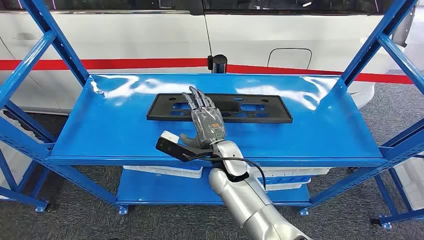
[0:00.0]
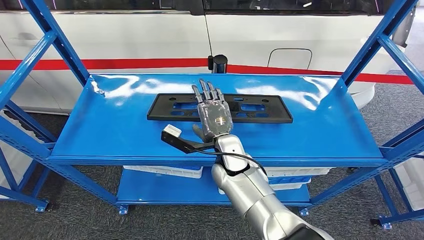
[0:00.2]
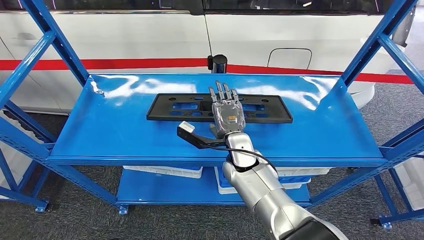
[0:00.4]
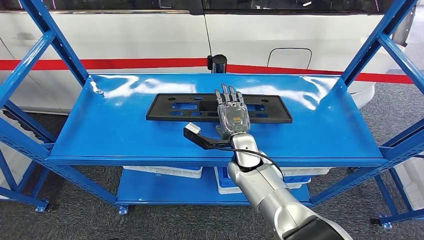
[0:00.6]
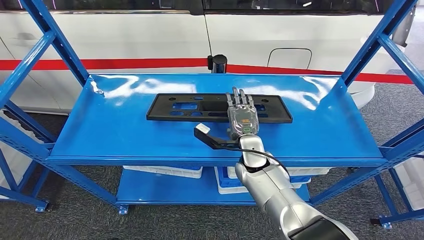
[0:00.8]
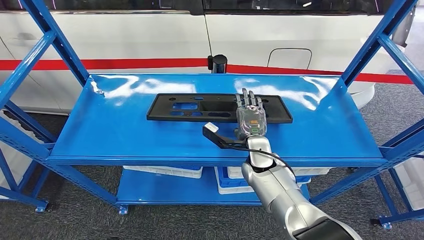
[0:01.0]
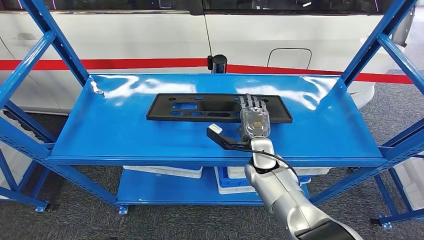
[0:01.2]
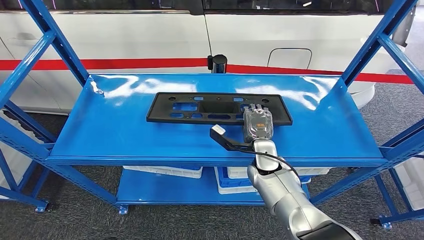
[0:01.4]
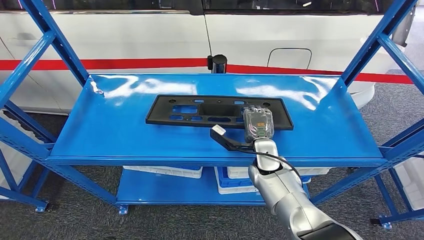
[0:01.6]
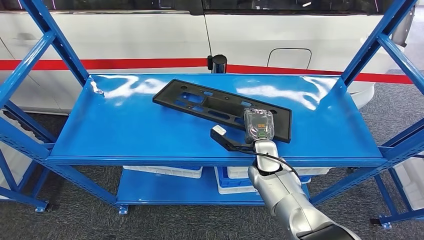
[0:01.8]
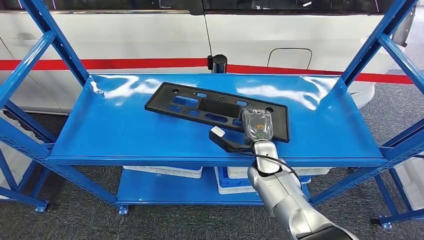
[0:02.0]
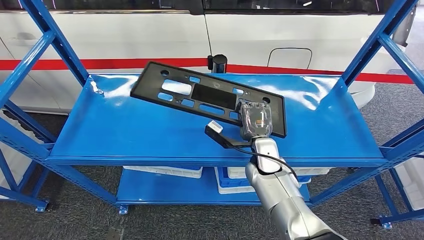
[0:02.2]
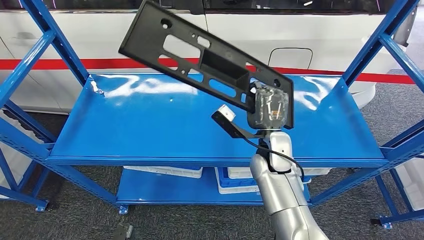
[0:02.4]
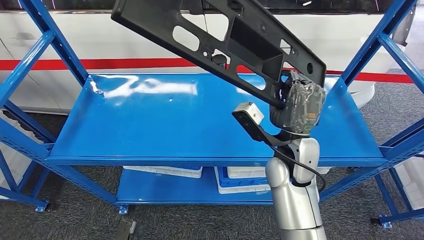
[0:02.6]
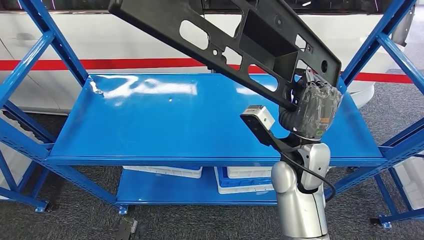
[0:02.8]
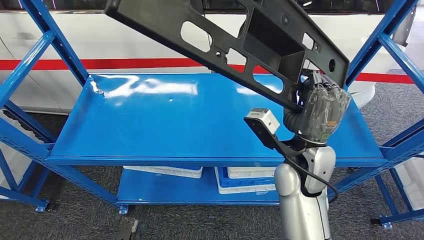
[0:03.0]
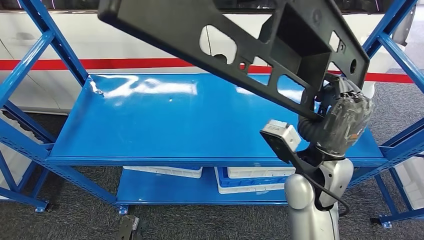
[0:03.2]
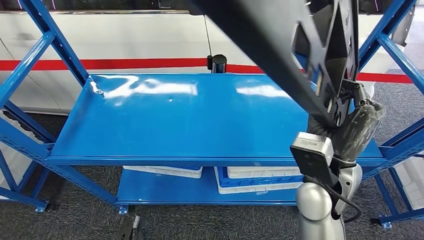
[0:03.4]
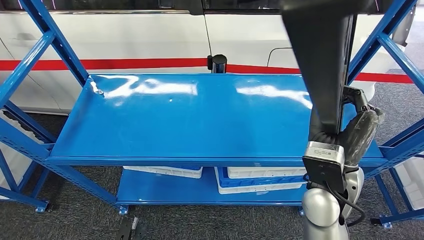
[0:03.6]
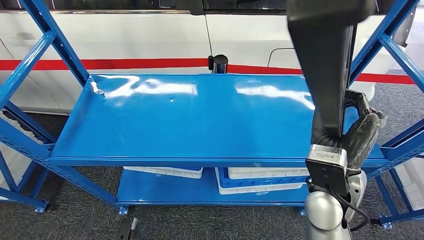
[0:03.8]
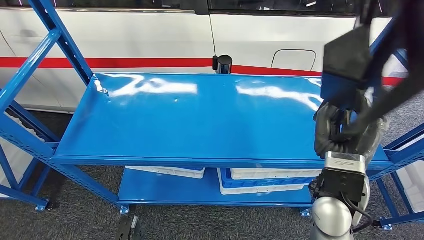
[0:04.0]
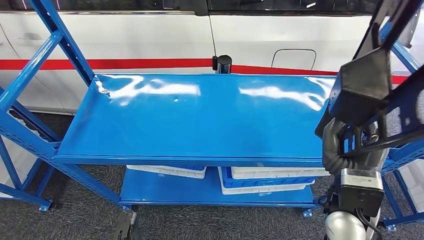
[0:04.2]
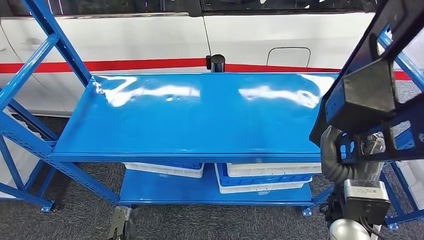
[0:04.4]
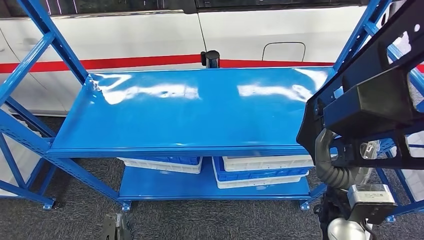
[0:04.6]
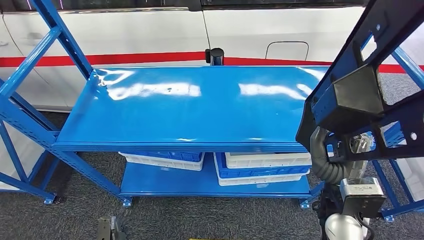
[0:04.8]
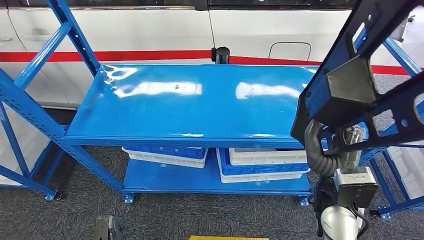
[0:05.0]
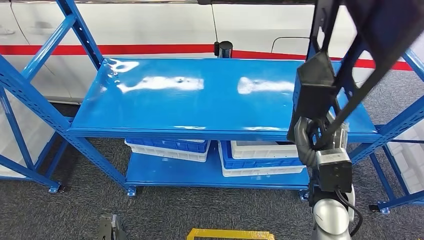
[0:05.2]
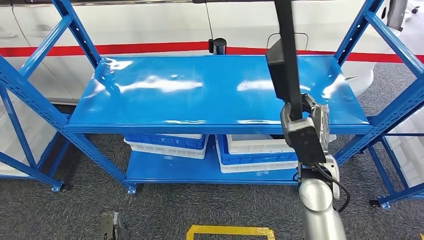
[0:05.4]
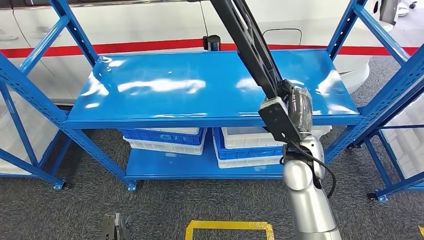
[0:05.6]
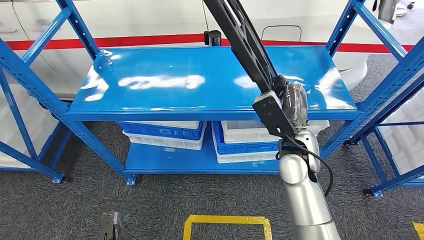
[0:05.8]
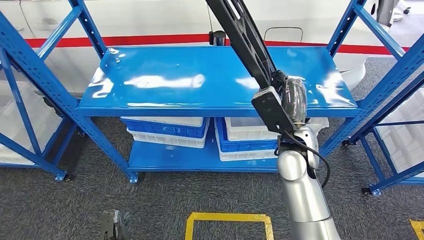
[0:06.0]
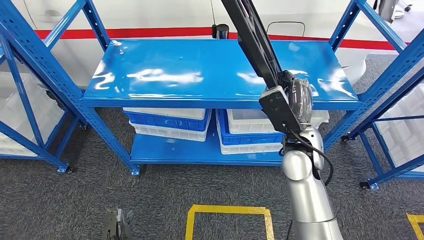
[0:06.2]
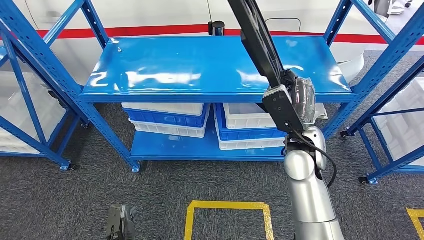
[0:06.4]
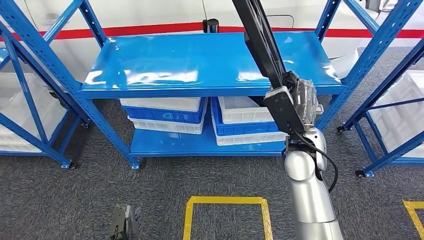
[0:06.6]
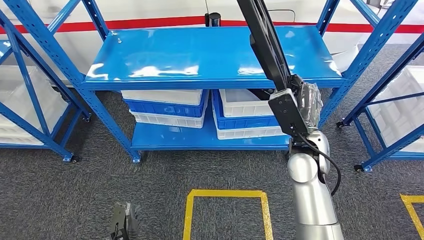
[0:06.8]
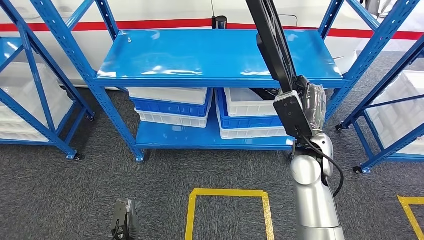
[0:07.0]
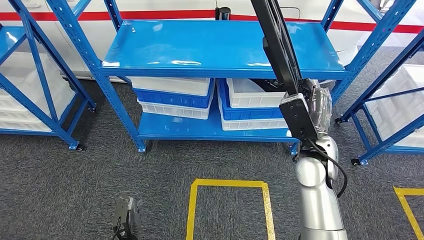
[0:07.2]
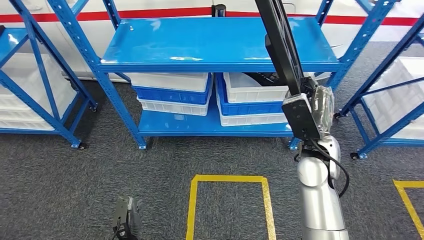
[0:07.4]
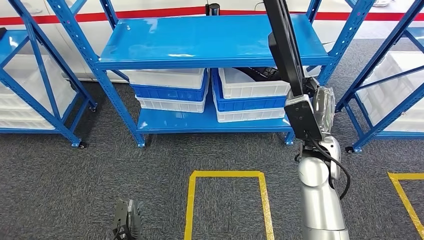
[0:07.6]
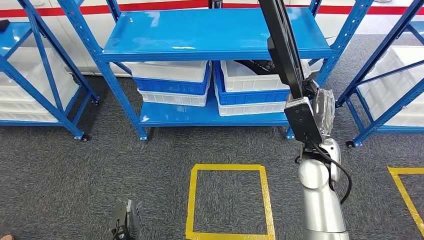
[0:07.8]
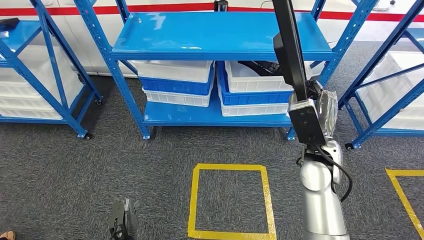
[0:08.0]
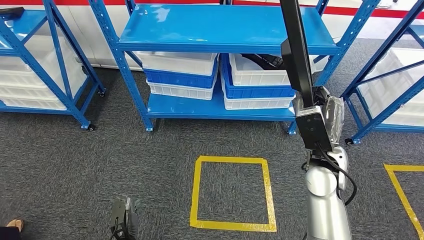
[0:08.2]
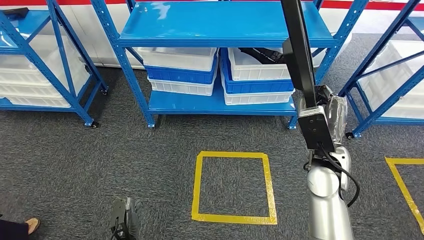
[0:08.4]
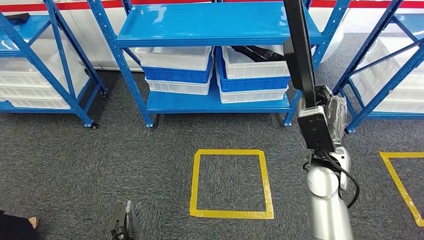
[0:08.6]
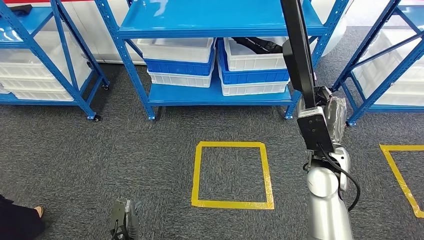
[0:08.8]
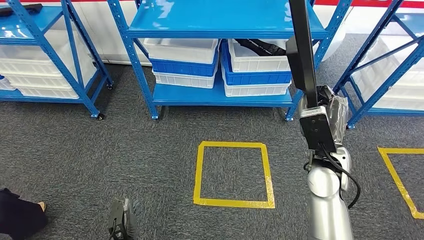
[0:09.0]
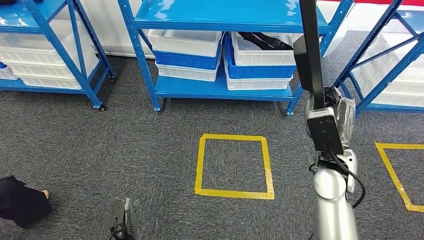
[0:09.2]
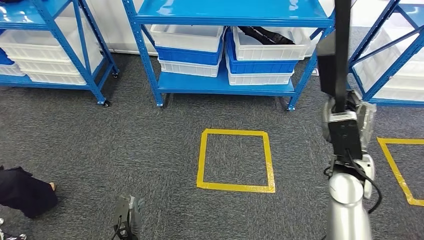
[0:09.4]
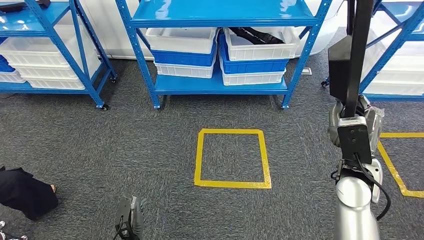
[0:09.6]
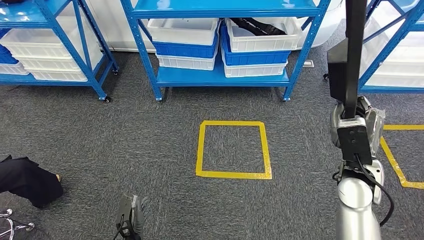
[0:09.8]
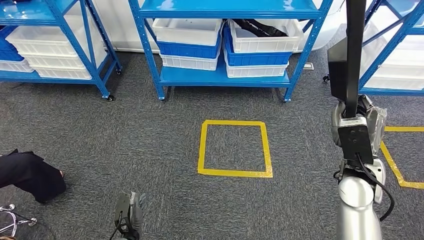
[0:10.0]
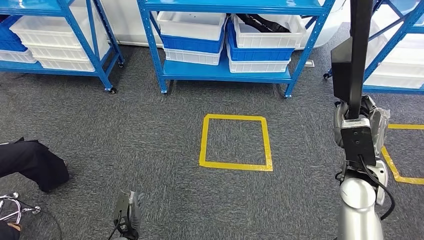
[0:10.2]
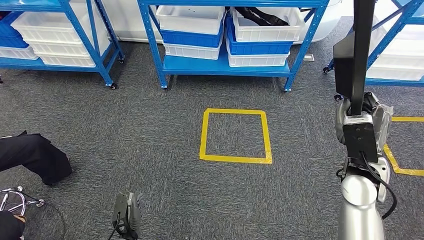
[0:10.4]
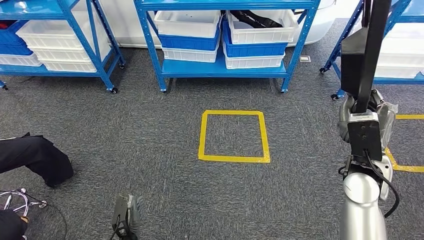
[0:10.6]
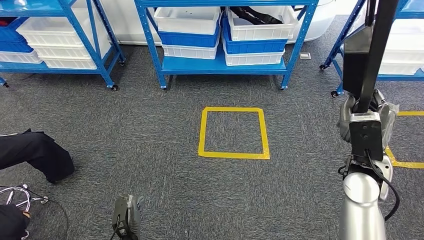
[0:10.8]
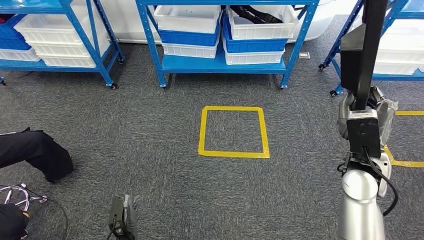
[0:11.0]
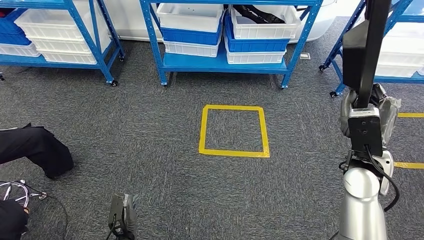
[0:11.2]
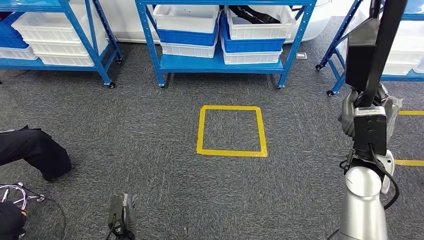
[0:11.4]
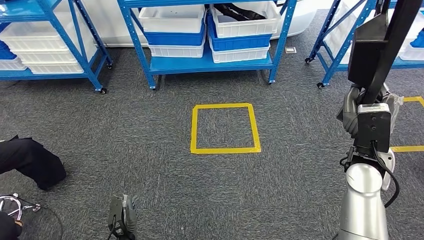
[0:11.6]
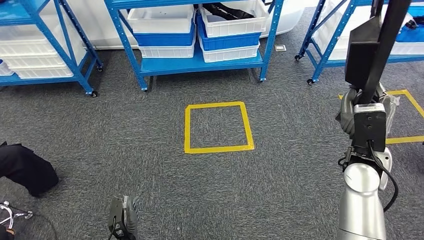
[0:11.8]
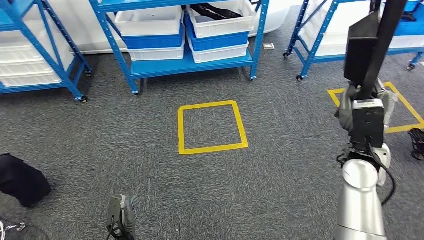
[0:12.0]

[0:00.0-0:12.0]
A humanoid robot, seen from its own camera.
Step, 0:00.0 to 0:04.8: Pick up the large material from the shelf.

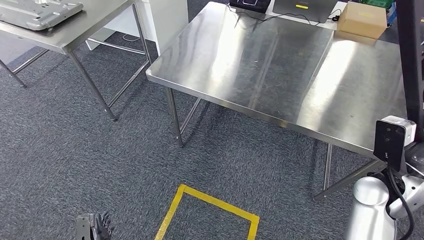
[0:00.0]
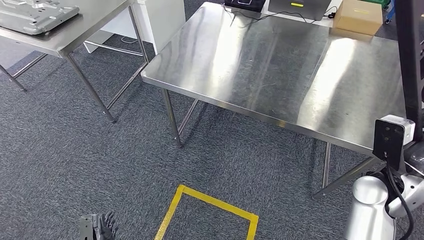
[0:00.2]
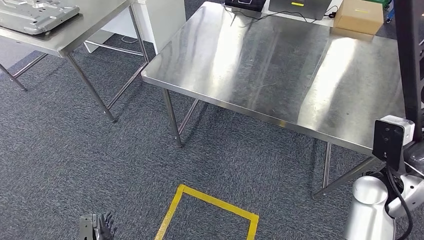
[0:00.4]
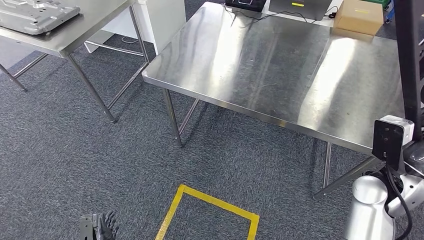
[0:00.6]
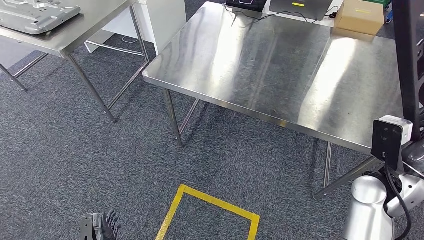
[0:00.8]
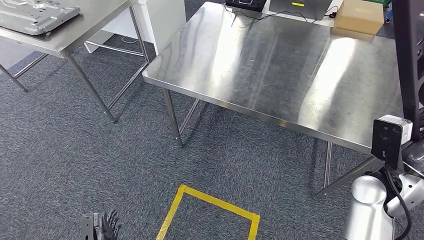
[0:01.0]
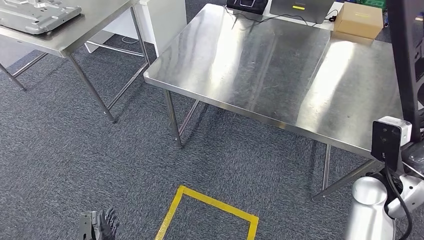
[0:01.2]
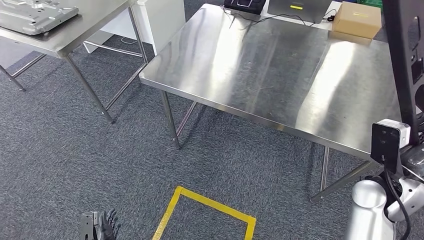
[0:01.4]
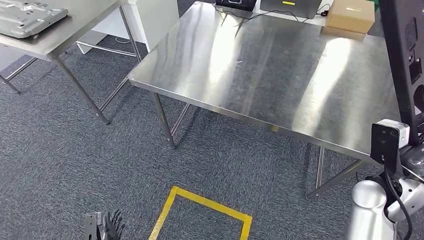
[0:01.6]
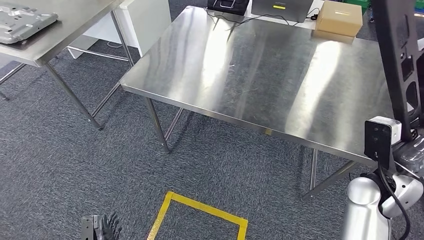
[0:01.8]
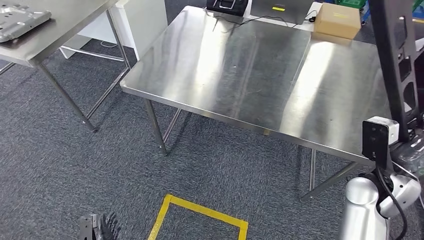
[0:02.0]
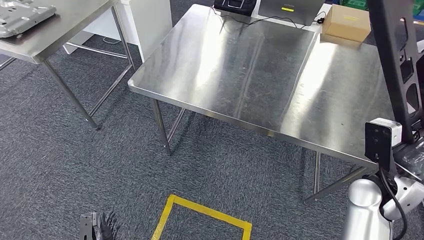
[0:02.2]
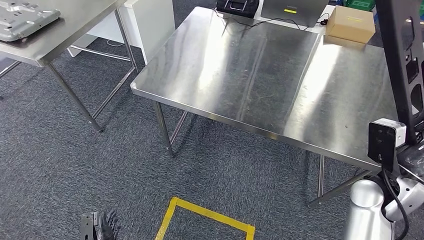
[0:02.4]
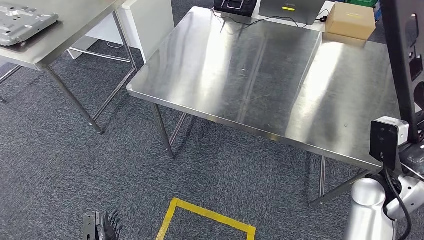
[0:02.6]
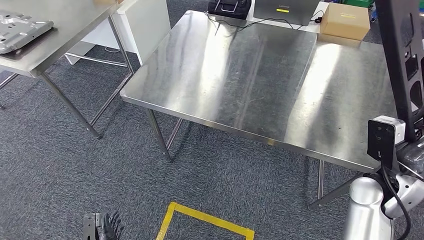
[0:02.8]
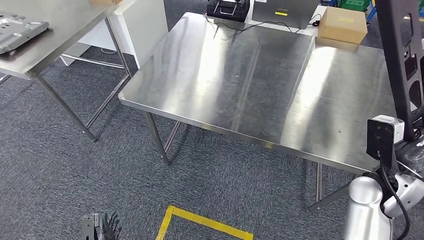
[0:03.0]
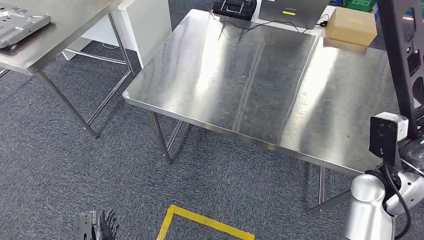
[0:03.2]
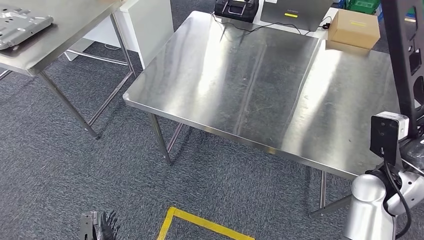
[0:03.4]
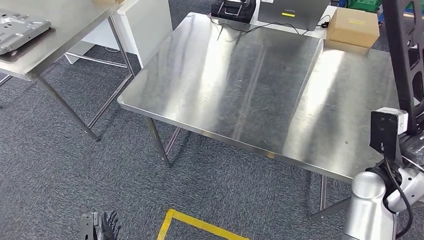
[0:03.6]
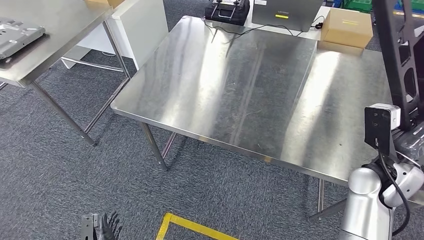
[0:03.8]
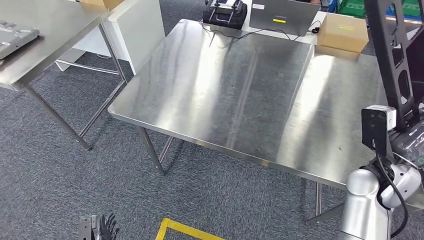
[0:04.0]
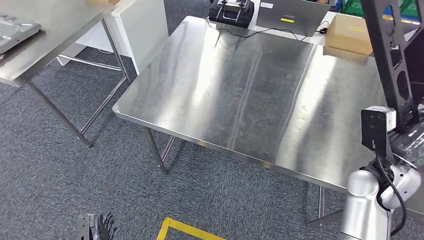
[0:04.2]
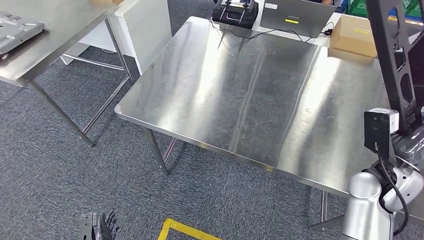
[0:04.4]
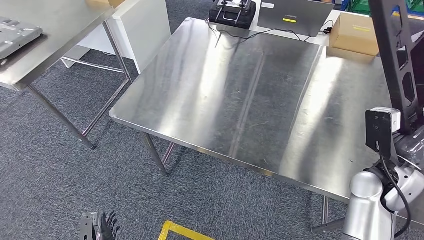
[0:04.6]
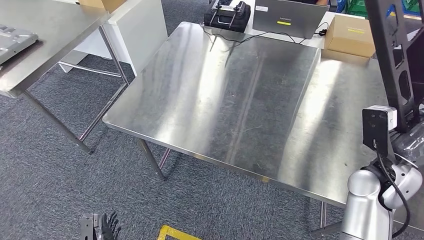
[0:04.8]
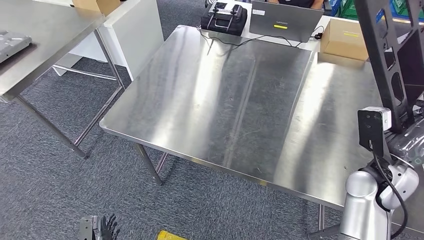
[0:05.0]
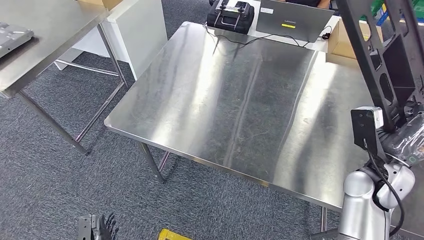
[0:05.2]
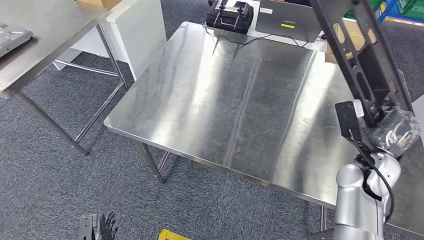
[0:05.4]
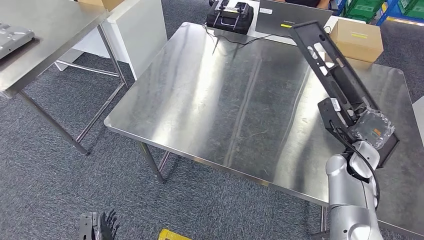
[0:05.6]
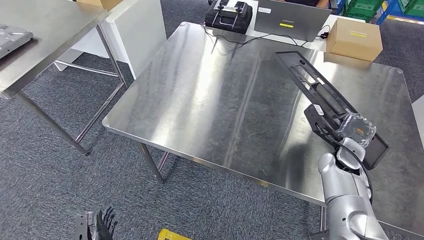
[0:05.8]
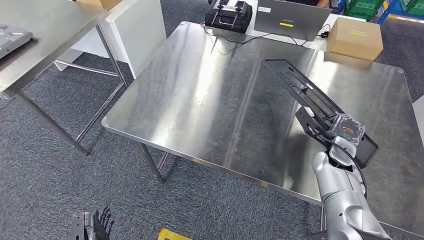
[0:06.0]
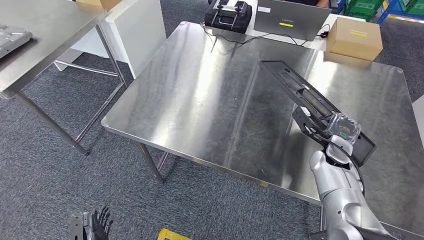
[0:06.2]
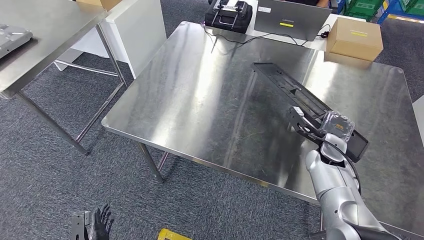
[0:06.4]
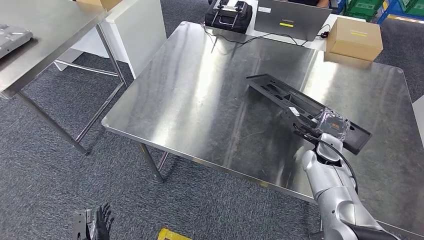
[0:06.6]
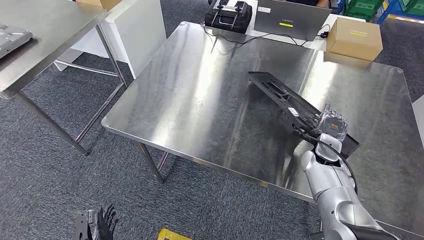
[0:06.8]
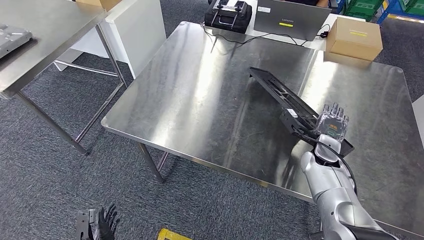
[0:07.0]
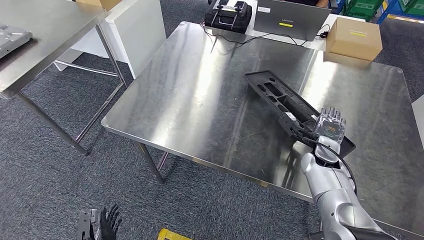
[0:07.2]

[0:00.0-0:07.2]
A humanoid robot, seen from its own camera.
0:00.0 to 0:01.4: The hands stay close to where they were, moving slightly.
0:05.8 to 0:07.2: The hands make only small movements.
